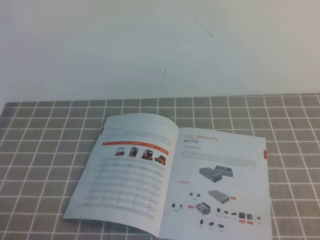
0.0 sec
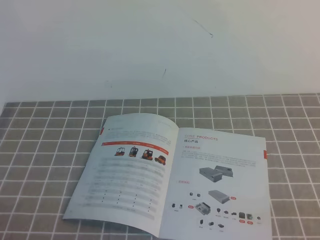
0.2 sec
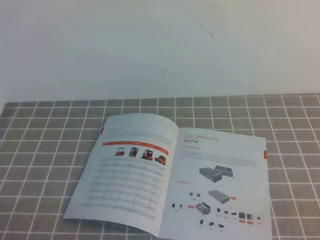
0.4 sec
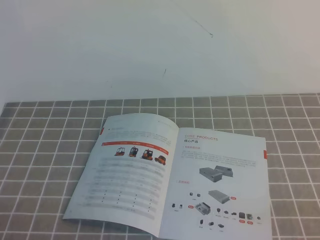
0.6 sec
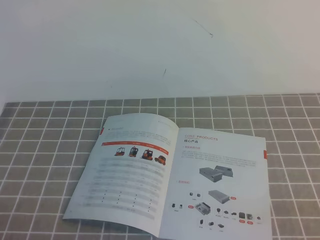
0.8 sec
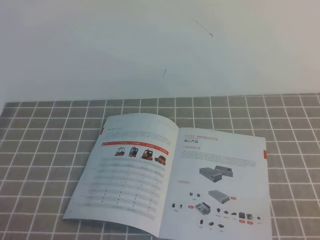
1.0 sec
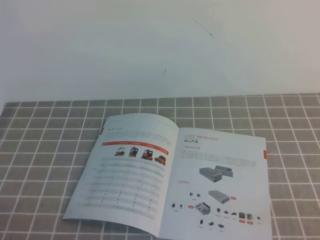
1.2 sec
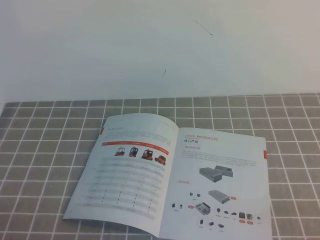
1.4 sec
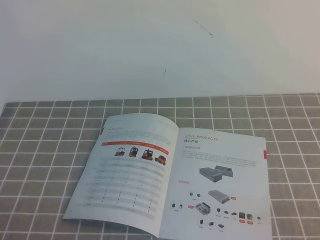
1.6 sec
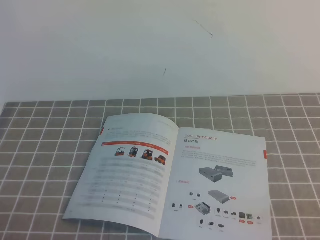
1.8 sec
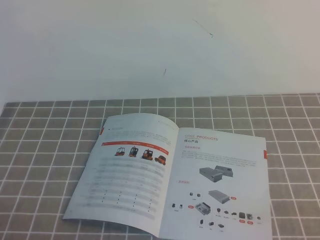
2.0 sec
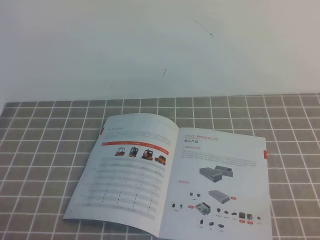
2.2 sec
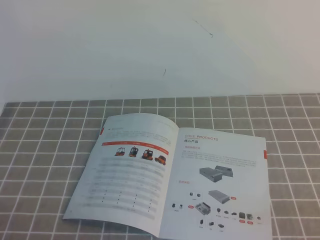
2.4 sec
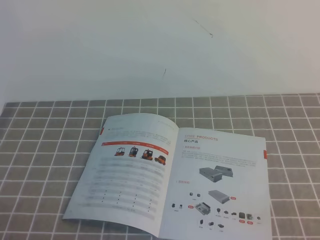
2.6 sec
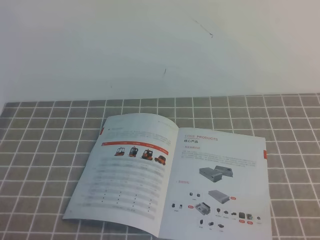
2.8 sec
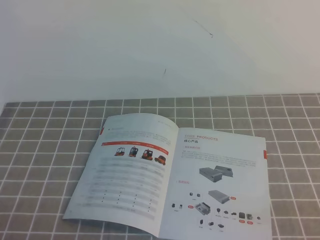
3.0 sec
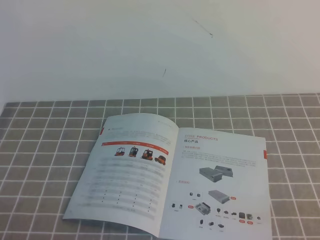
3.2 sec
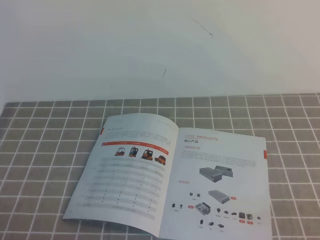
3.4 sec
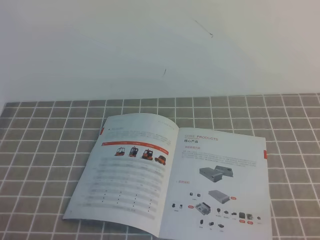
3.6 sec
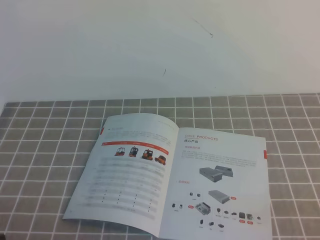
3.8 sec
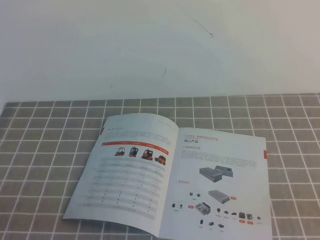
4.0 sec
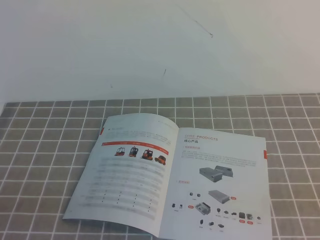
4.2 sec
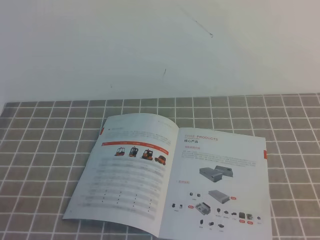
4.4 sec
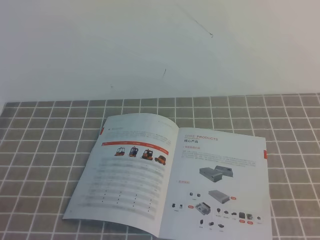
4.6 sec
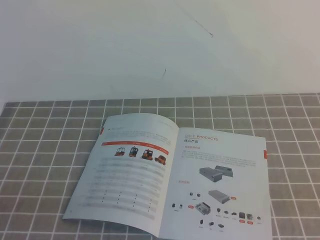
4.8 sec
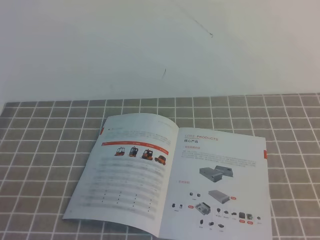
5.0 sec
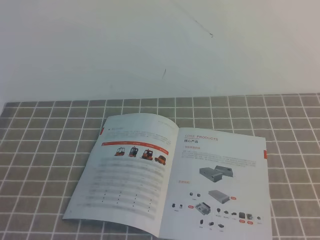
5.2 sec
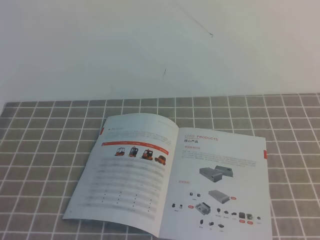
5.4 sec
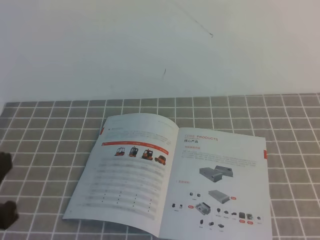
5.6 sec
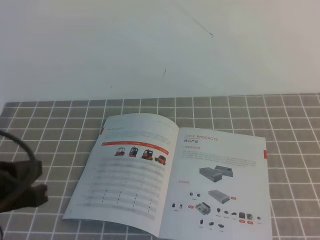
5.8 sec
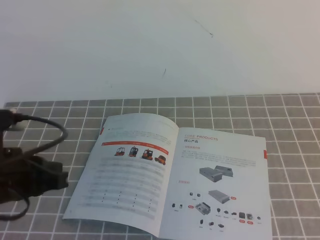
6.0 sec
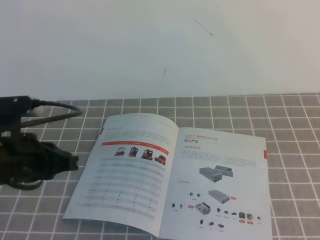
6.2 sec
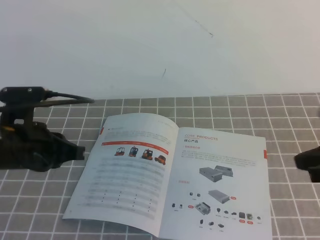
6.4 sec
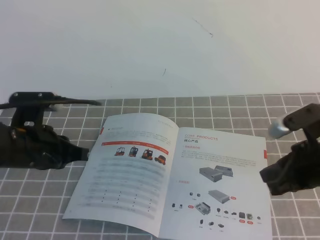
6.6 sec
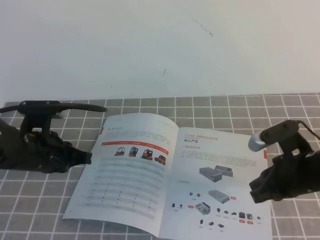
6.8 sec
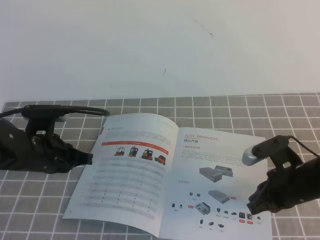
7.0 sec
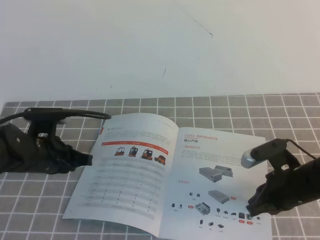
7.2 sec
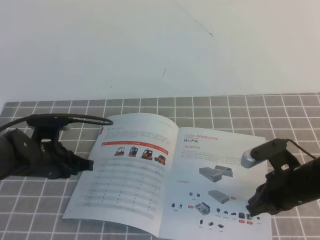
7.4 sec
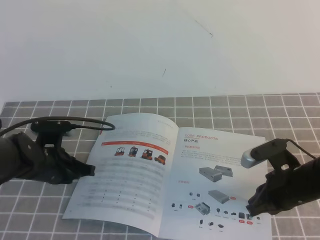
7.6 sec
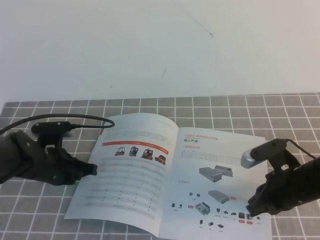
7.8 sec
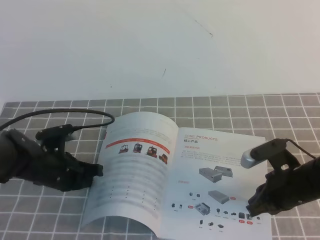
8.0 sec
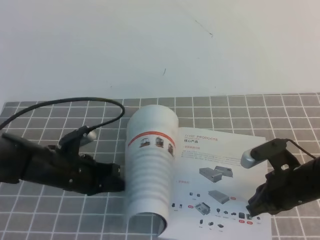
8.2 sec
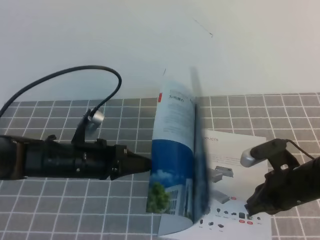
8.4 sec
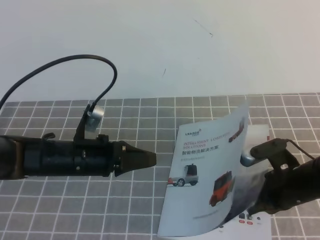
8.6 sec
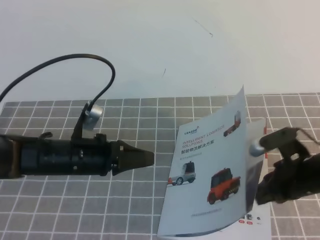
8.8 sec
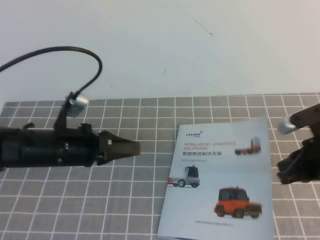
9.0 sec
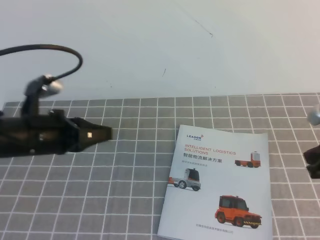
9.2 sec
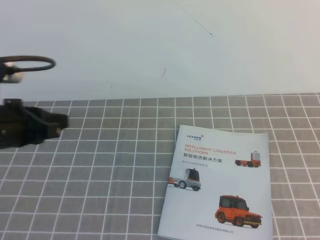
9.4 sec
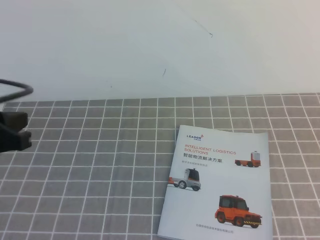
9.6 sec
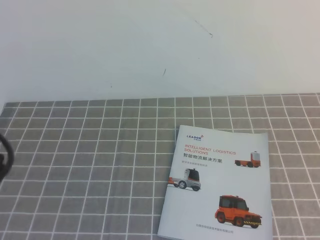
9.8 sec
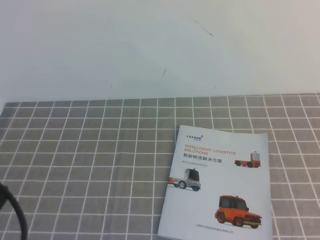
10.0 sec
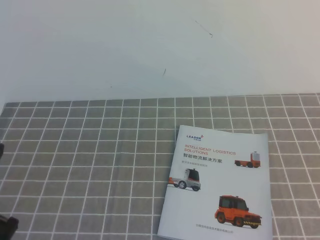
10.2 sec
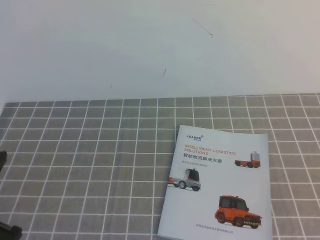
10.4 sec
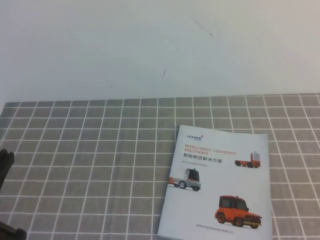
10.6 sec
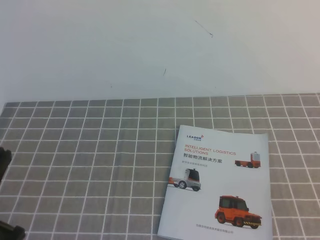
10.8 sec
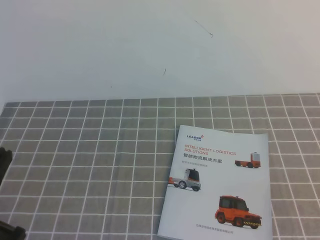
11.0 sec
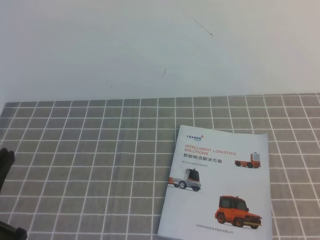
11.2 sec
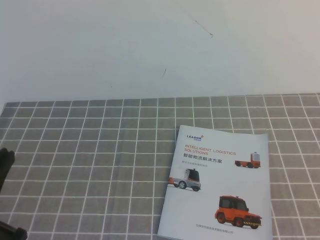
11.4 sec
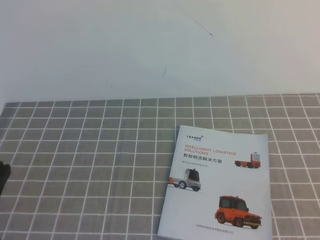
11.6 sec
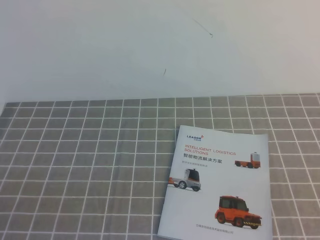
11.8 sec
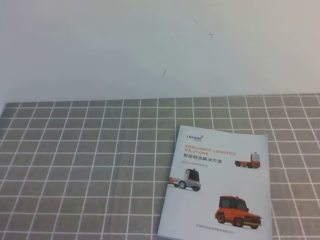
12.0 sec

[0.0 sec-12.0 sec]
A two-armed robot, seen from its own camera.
Task of the whole recording: on the grey tablecloth, hold the book with one hand and close it with the other.
0.0 sec to 3.0 sec: The two grippers keep their place.
4.4 sec to 6.0 sec: The left gripper moves forward, some 15 cm.
6.0 sec to 7.6 sec: The right gripper shifts approximately 25 cm downward, forward and to the left. The left gripper heads forward and downward, covering some 20 cm.
7.6 sec to 9.0 sec: Both grippers move upward, about 5 cm.
9.0 sec to 10.4 sec: The two grippers go approximately 25 cm backward and upward.

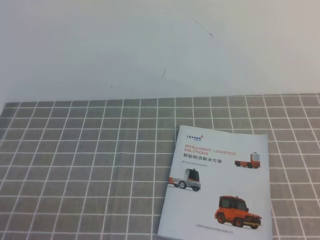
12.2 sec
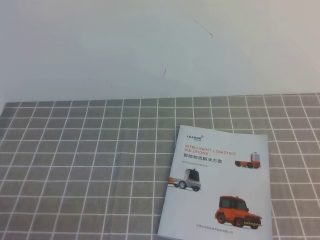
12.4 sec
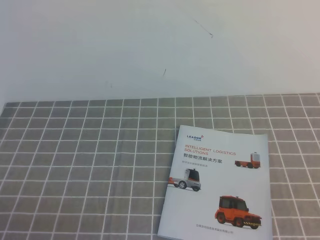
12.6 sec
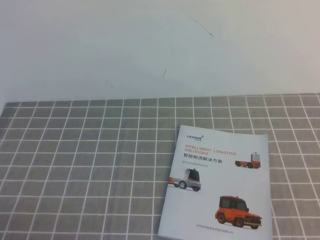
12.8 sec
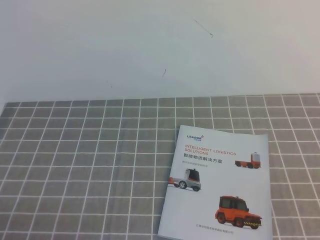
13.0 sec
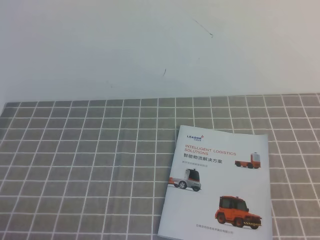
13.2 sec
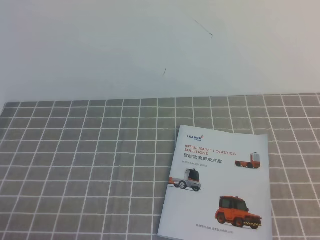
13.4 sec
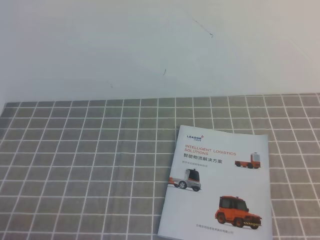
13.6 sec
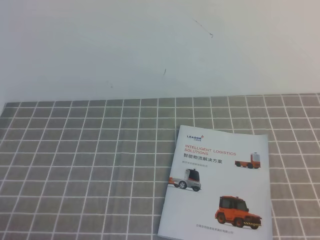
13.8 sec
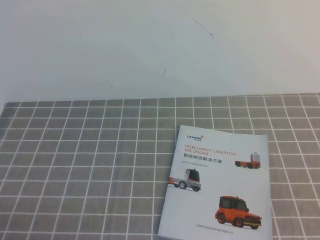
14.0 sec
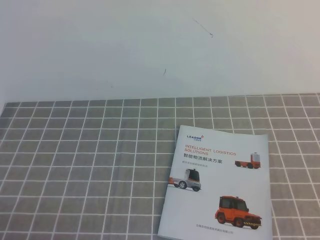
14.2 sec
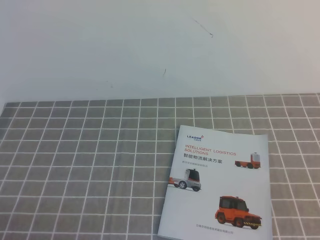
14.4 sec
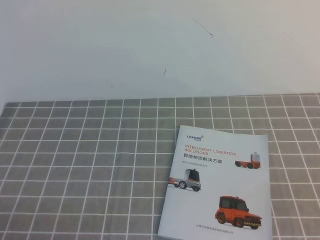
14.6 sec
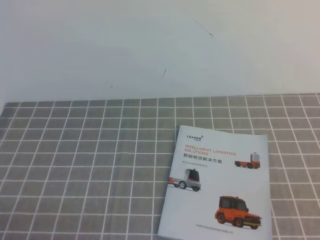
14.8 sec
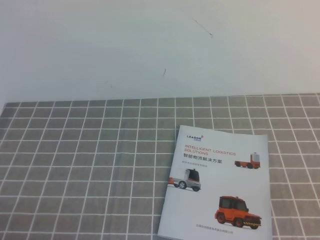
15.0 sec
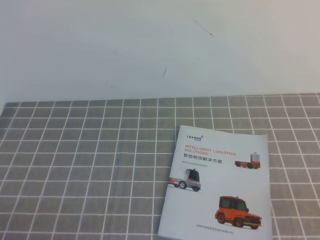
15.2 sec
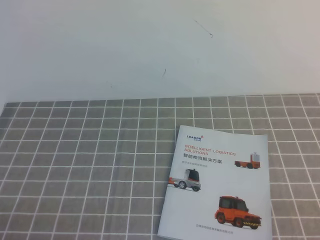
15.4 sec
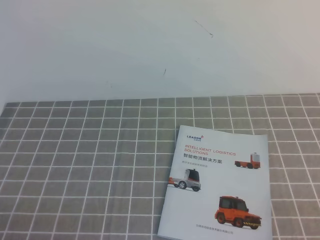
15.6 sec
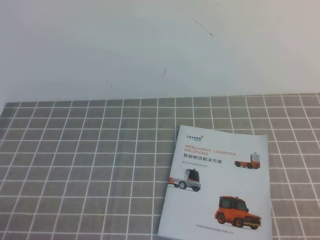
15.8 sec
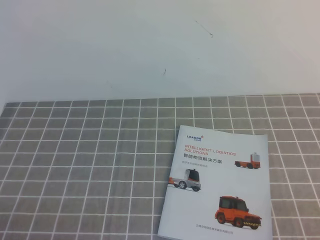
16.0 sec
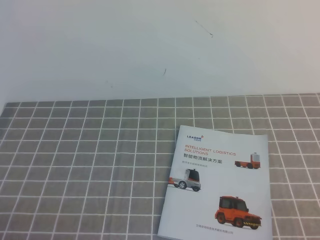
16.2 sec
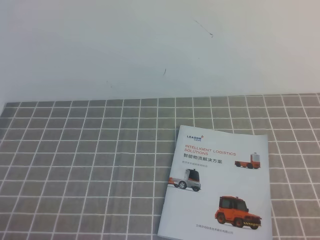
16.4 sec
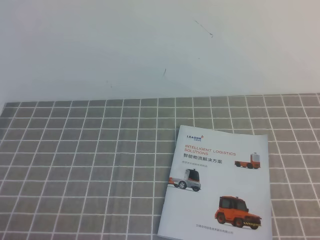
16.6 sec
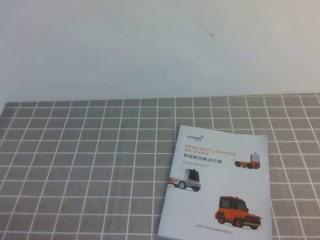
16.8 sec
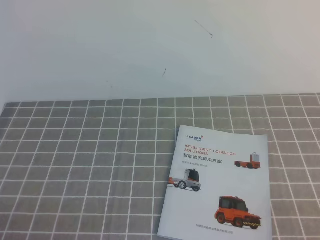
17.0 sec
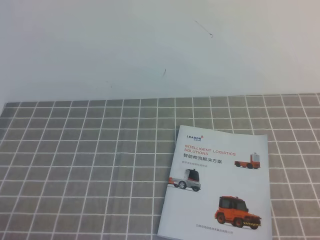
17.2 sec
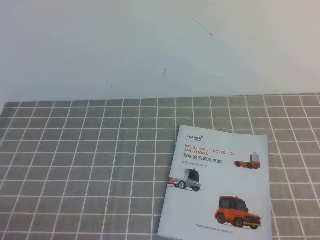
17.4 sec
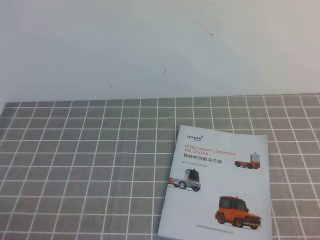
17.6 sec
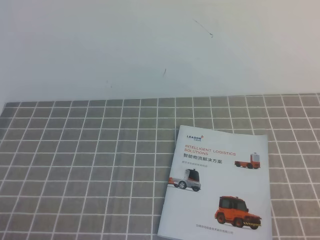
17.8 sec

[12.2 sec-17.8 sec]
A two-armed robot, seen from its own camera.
Task of the whole recording: on the grey tablecloth, hold the book with one hand and close it with the other.
16.4 sec to 17.8 sec: Both grippers stay put.

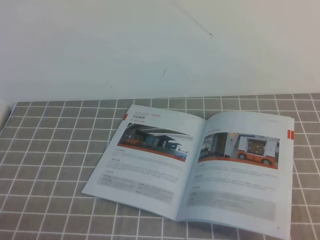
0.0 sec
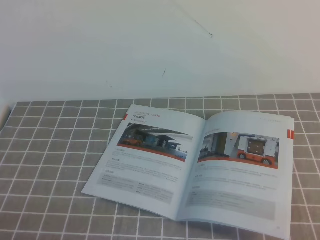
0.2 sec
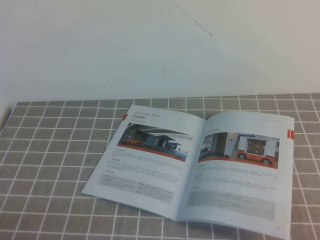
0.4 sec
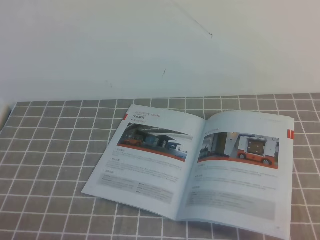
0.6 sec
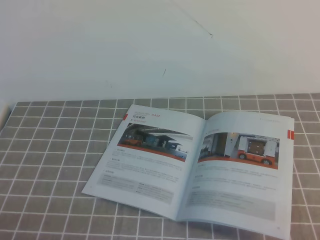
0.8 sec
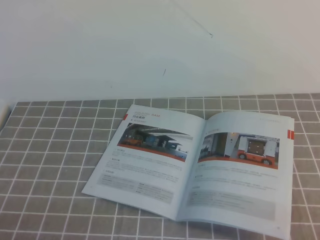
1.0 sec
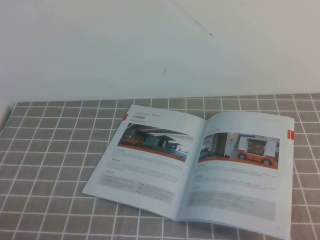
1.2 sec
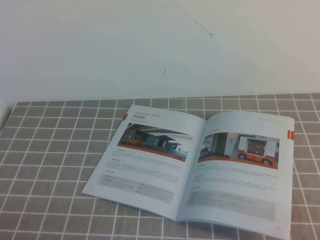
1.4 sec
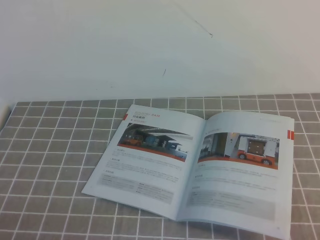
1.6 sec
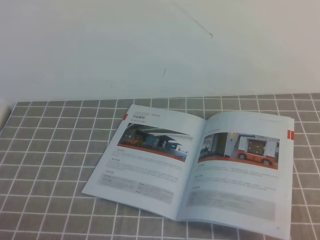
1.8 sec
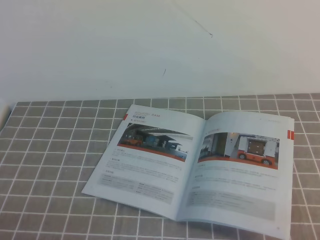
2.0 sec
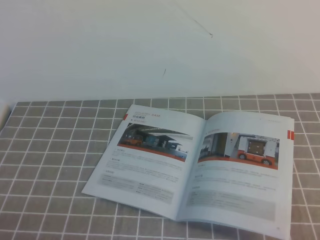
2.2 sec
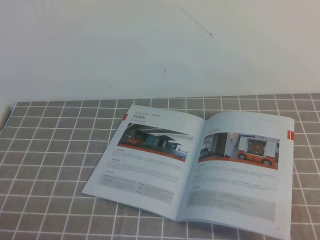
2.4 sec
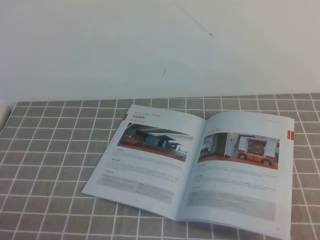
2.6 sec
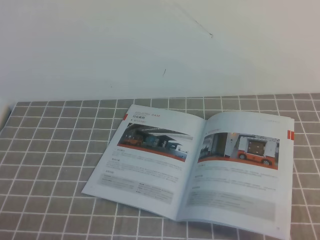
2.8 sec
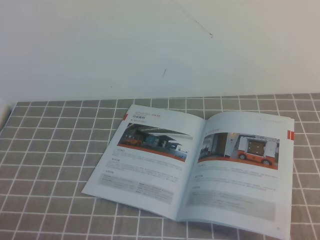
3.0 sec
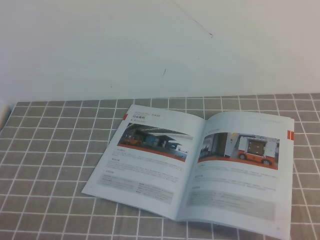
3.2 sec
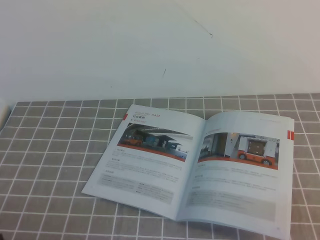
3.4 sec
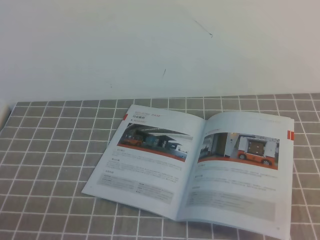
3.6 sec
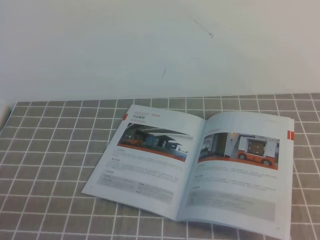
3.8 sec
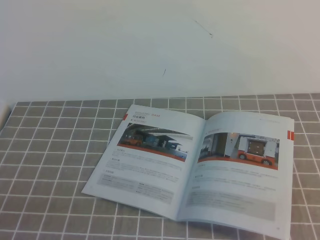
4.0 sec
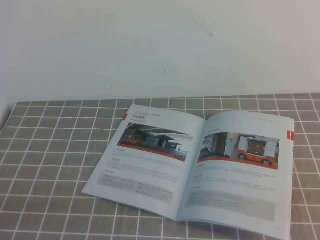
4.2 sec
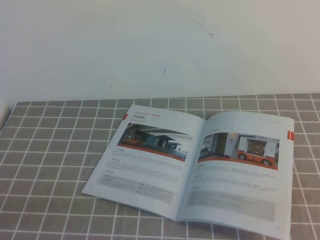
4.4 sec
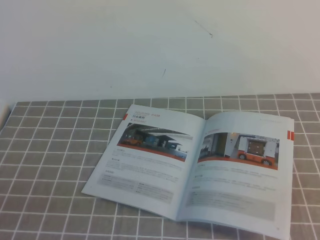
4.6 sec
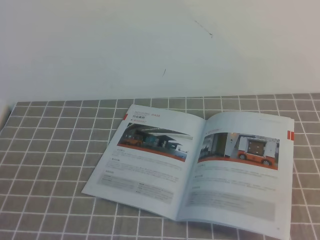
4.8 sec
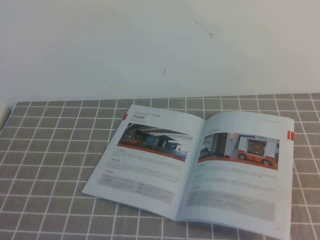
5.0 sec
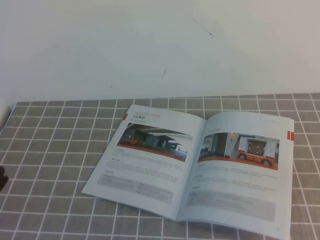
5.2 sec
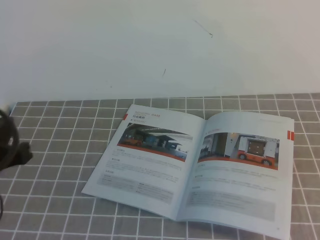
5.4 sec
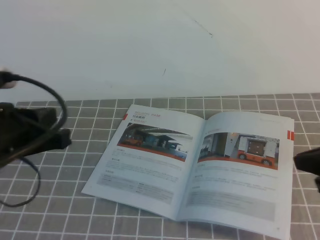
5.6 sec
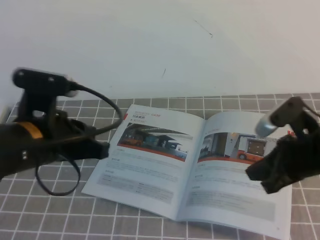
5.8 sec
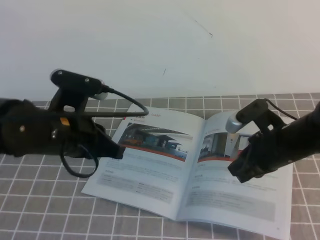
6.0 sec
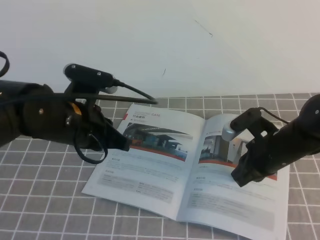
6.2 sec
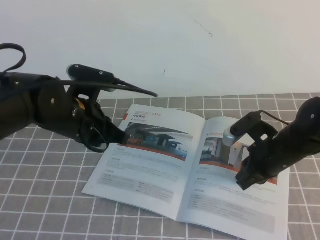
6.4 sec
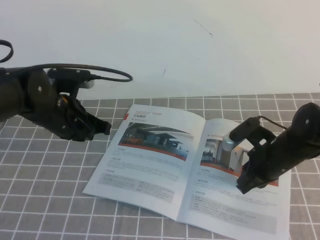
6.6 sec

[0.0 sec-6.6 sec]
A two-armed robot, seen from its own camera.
Task of the whole recording: on the grey tablecloth, hold the book with one hand and close it with the other.
1.6 sec to 3.2 sec: The two grippers keep their place.
5.0 sec to 6.6 sec: The right gripper shifts some 35 cm forward, downward and to the left; the left gripper is displaced forward by approximately 30 cm.
